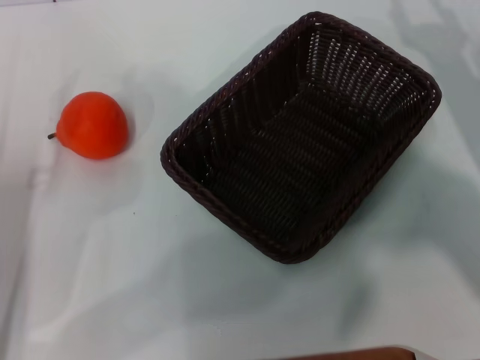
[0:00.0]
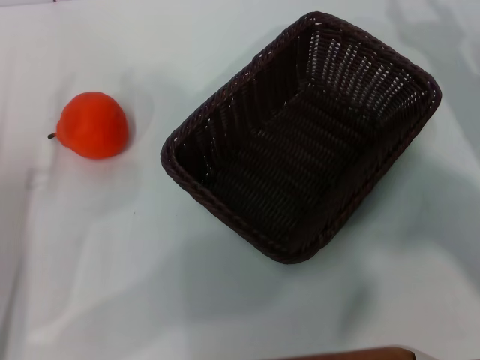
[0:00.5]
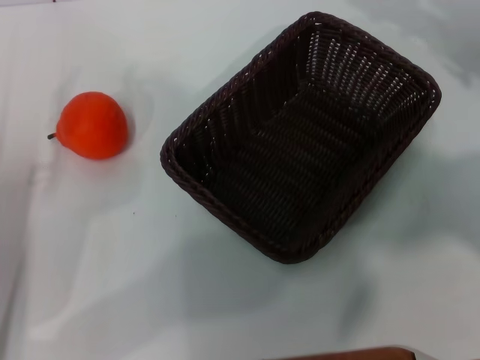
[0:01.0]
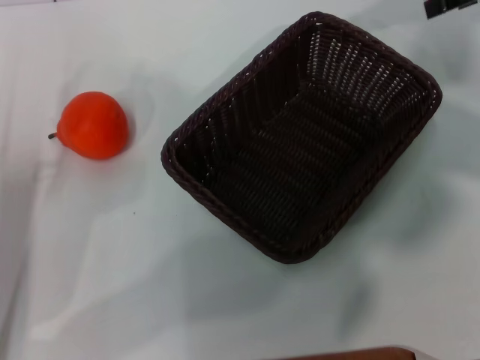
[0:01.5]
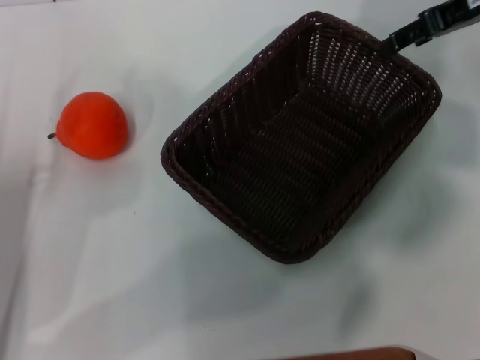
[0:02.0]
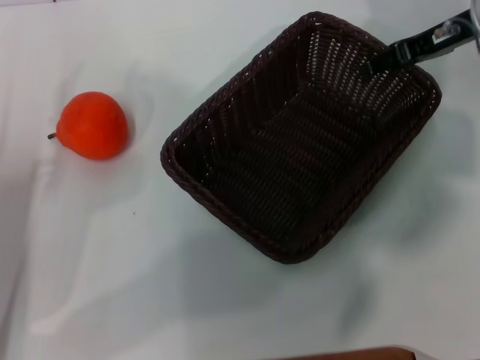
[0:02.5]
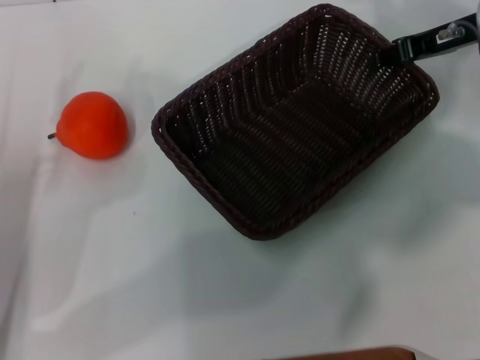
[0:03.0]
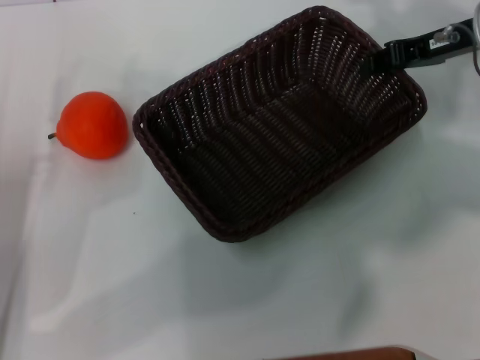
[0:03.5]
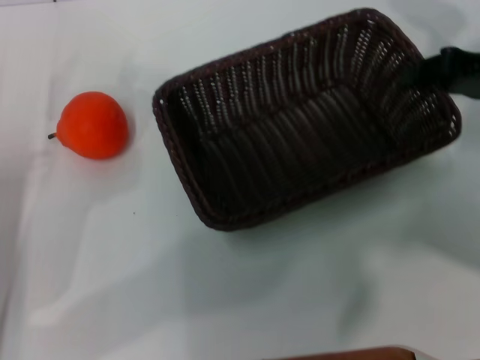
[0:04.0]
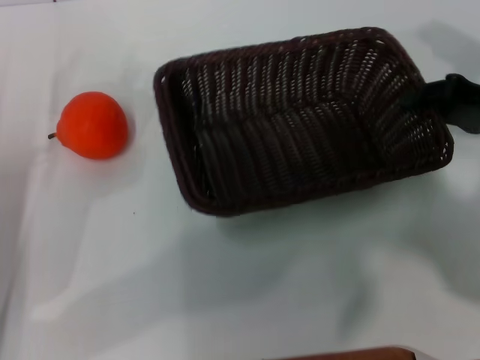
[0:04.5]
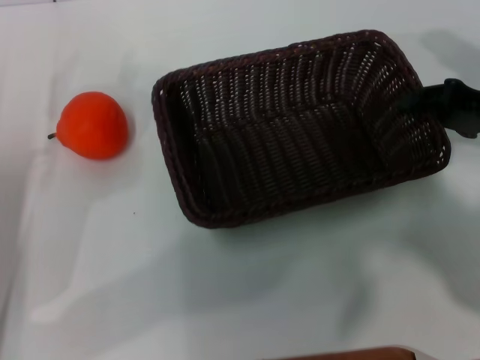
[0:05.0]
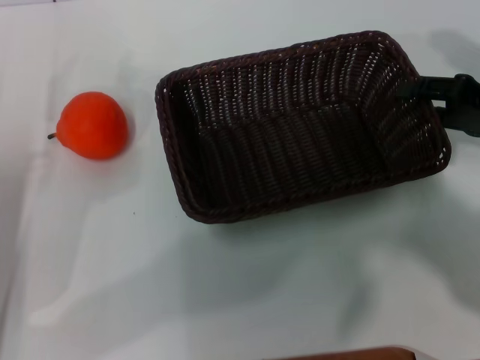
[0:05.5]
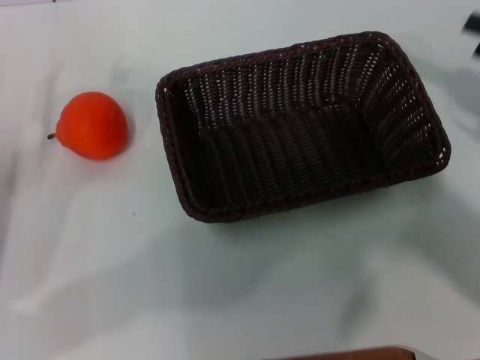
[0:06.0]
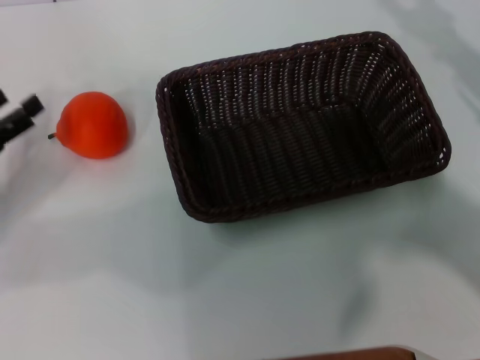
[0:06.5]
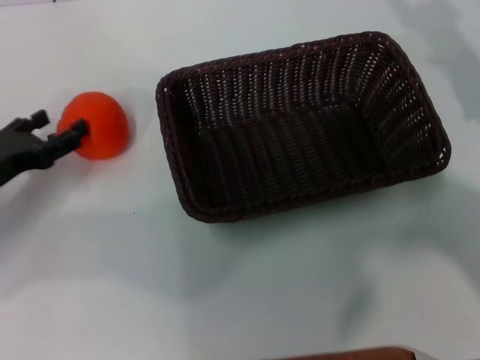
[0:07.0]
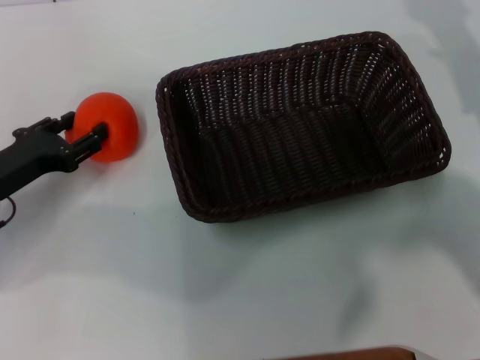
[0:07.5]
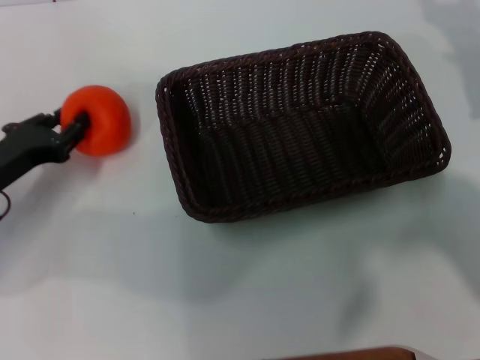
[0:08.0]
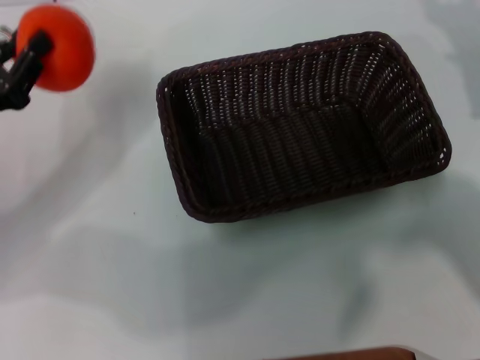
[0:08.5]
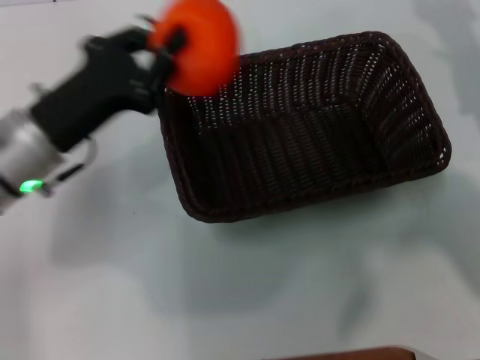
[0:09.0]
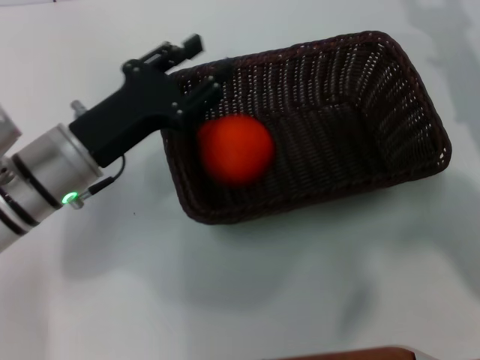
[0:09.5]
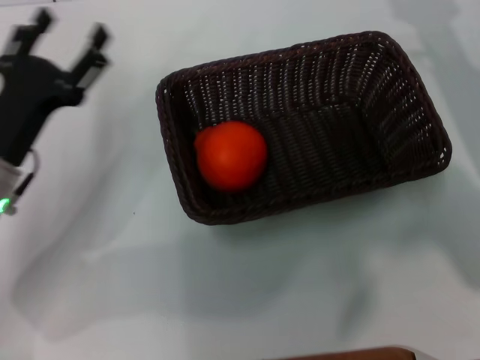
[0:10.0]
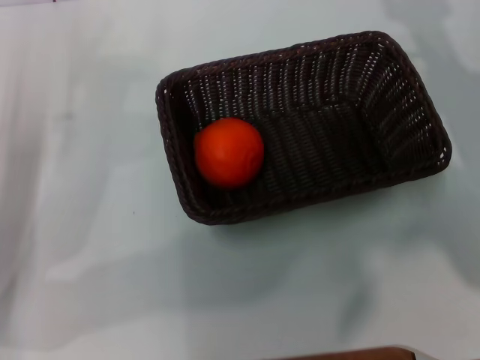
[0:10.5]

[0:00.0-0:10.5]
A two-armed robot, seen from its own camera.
Task of the whole recording: the right gripper pick up the black basket and place it horizontally in the middle of the table, the left gripper pick up the orange and place it into the black basket.
Step, 0:00.0 to 0:02.5: Pick up the dark basket with the right gripper.
Step, 0:03.0 to 0:05.5: Place the light basket in the center of view with the right gripper.
Step, 0:06.0 to 0:08.0: Pick up the orange with the left gripper.
Step, 0:08.5 to 0:09.5: Place the orange into the light basket with the left gripper.
0:00.0 to 0:02.0: The right gripper travels upward and forward by roughly 20 cm.
0:02.0 to 0:04.0: The right gripper moves backward and downward, roughly 10 cm, and closes up.
0:04.0 to 0:06.5: The right gripper goes roughly 10 cm to the right and backward, and opens up. Meanwhile the left gripper is displaced to the left by about 5 cm.
0:06.5 to 0:08.5: The left gripper ends up approximately 5 cm from where it was, and closes its fingers.
0:08.5 to 0:10.5: The left gripper travels to the right and back again, some 10 cm each way, and opens up.

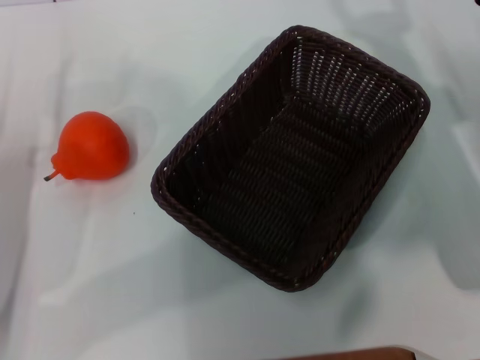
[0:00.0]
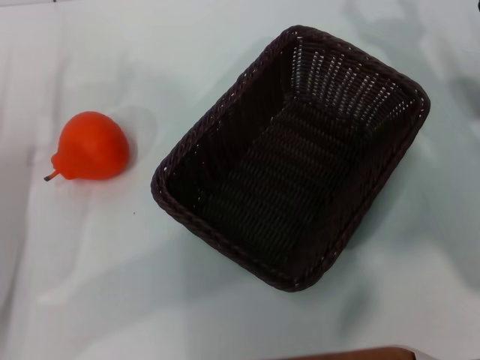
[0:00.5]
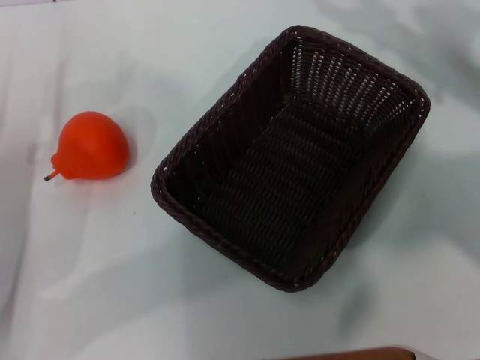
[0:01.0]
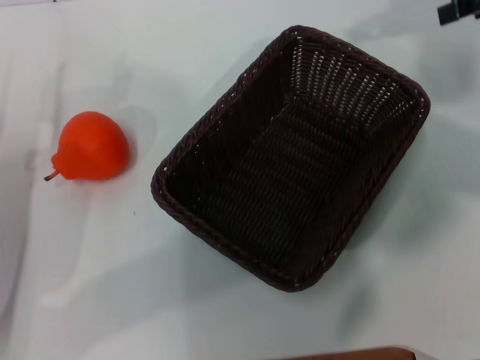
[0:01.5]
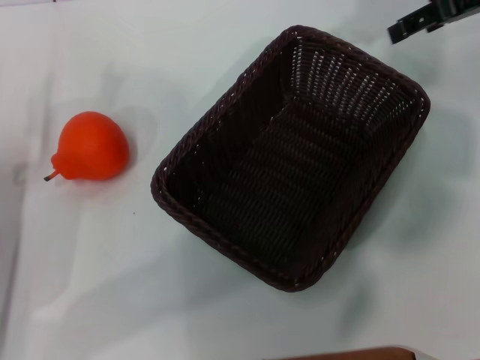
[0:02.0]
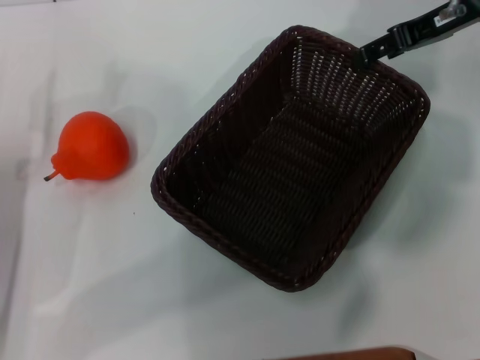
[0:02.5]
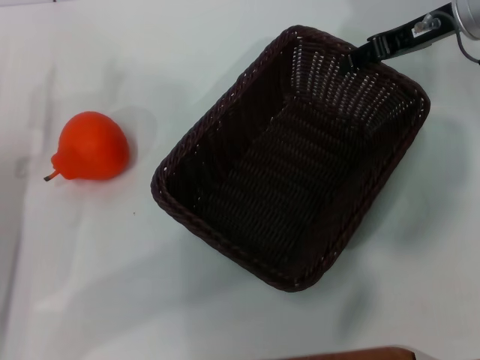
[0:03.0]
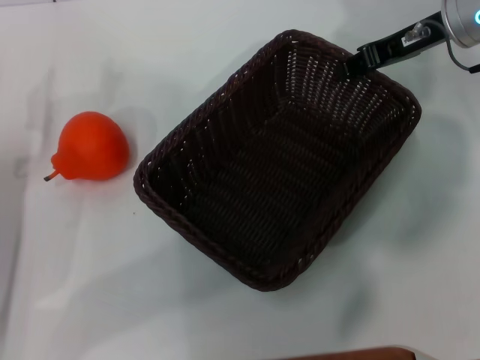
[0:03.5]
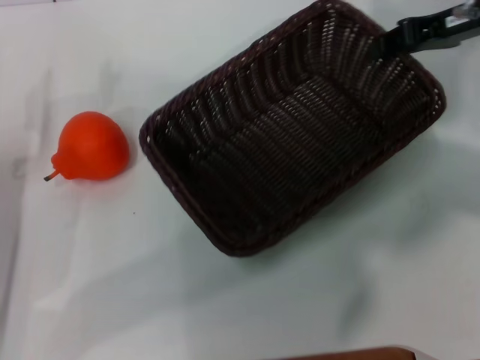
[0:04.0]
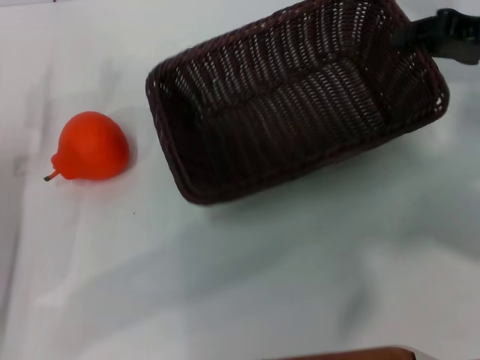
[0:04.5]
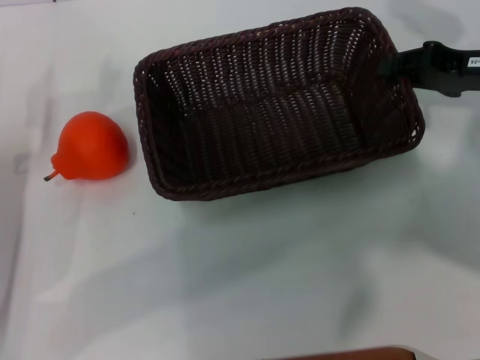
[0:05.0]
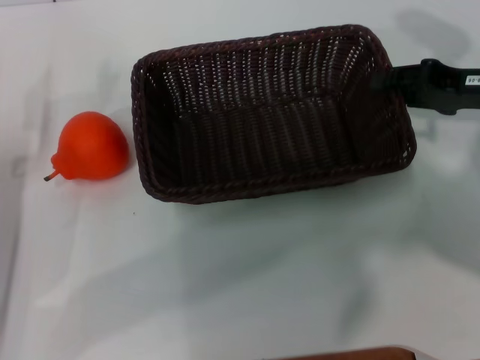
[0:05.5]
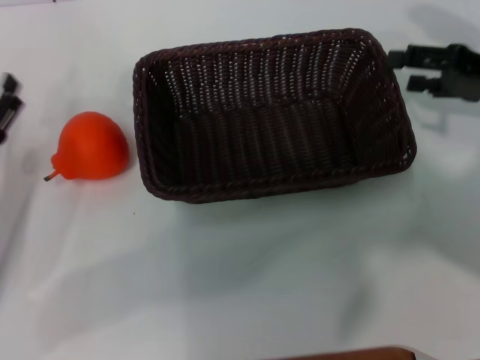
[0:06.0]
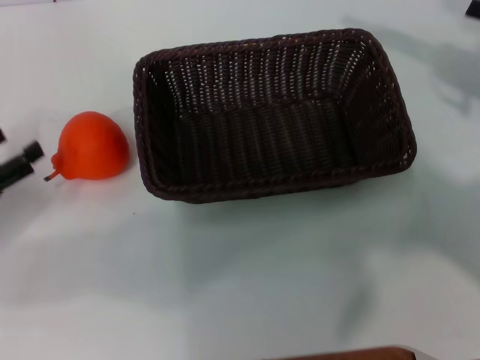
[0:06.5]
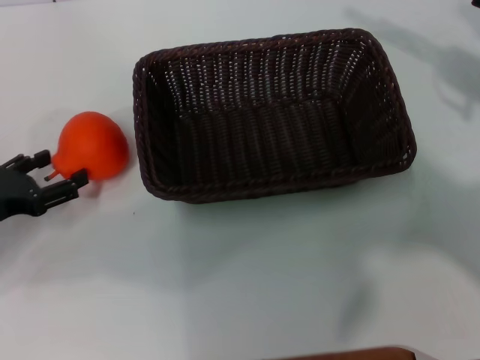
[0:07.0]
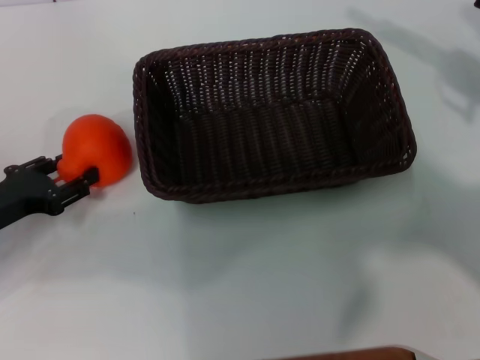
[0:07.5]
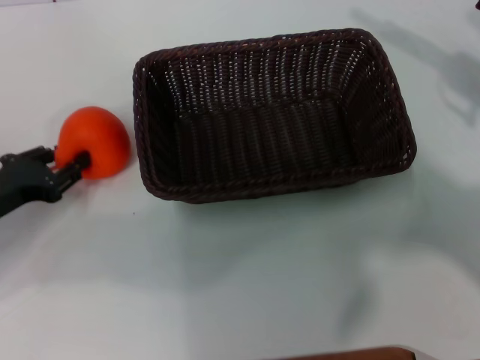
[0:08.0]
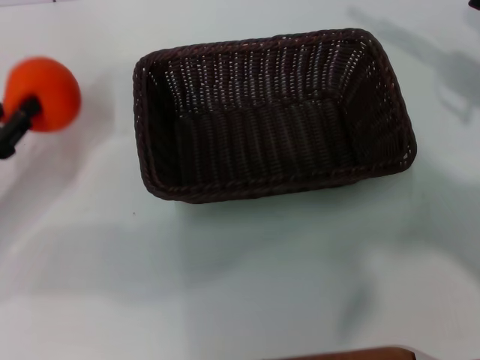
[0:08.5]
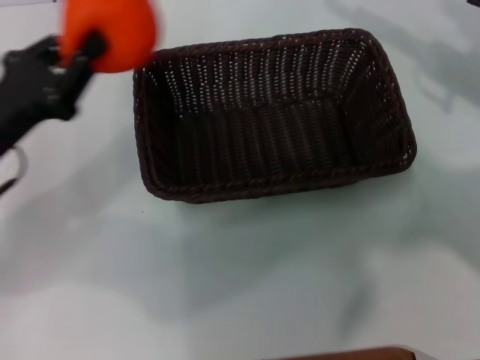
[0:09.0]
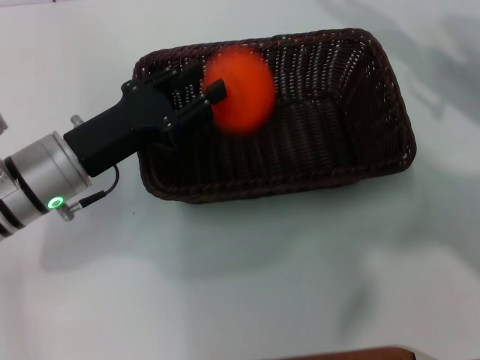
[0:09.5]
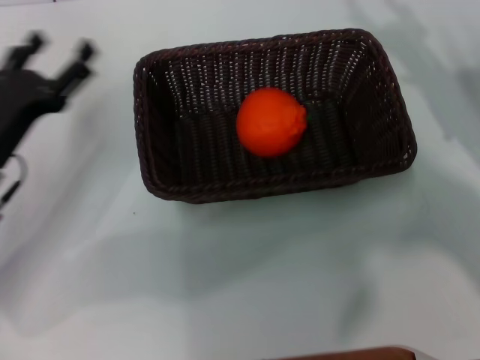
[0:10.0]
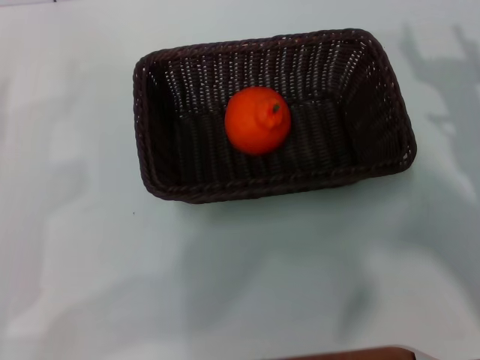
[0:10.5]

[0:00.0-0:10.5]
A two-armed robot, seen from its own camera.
Task of the whole recording: the right gripper pick up the black basket and place it horizontally in the middle of the table, the left gripper pick up the orange and place it into the black basket.
Step, 0:00.0 to 0:04.0: Pick up the dark basket with the right gripper.
Step, 0:04.5 to 0:06.0: Place the dark basket in the center of view with the right gripper.
Step, 0:06.5 to 0:08.0: Pick up the orange with the left gripper.
Step, 0:08.5 to 0:09.5: Place the orange into the dark basket with the right gripper.
0:00.0 to 0:02.0: The right gripper heads upward and forward, covering roughly 20 cm.
0:02.0 to 0:04.0: The right gripper closes up.
0:04.0 to 0:06.5: The left gripper moves to the left, about 5 cm; the right gripper heads to the right and backward, covering about 10 cm, and opens up.
0:06.5 to 0:08.5: The left gripper closes up.
0:08.5 to 0:10.5: The left gripper travels backward by approximately 5 cm, travels to the right and back again, about 15 cm each way, and opens up. The right gripper shifts some 10 cm downward and backward.
